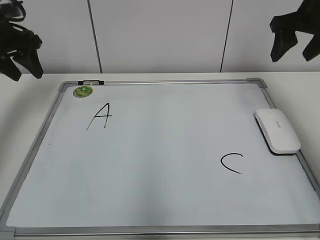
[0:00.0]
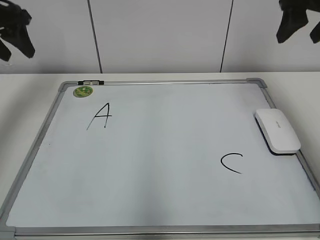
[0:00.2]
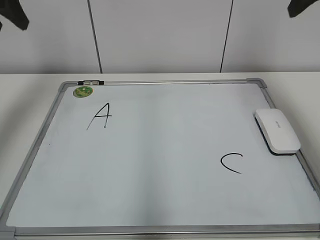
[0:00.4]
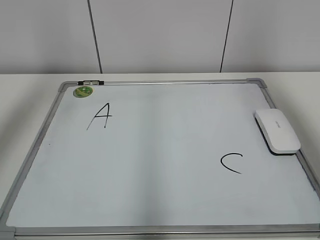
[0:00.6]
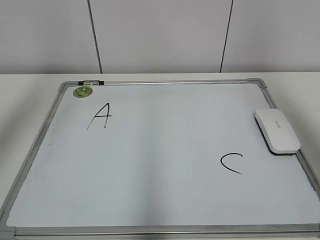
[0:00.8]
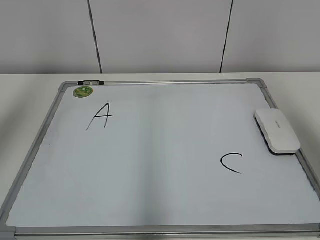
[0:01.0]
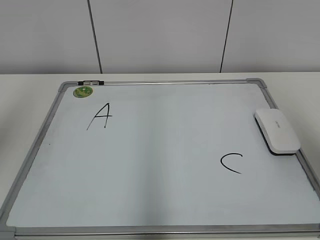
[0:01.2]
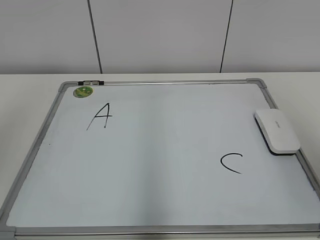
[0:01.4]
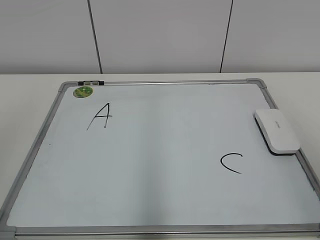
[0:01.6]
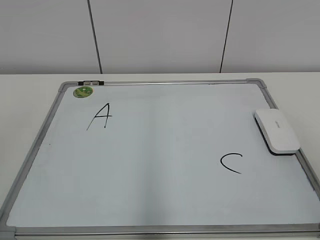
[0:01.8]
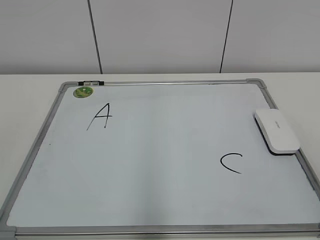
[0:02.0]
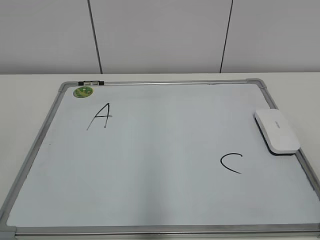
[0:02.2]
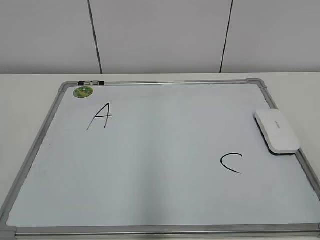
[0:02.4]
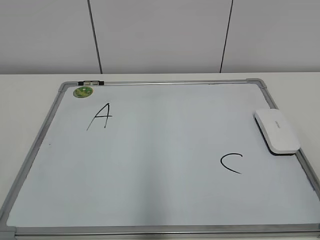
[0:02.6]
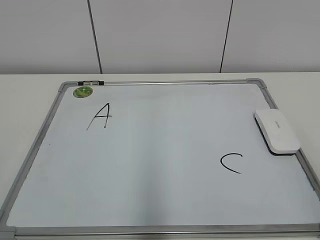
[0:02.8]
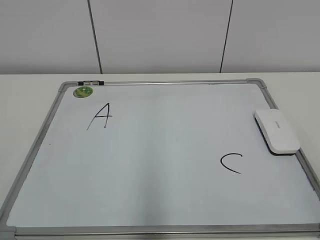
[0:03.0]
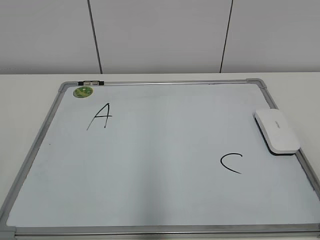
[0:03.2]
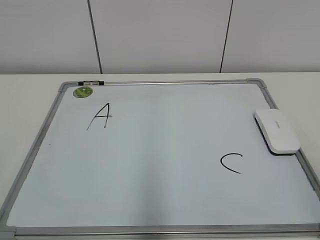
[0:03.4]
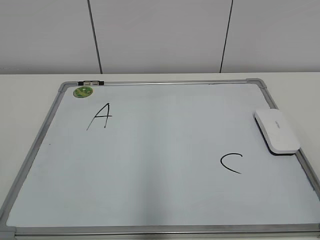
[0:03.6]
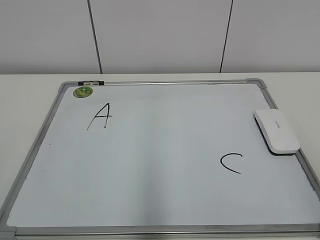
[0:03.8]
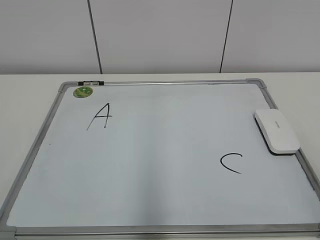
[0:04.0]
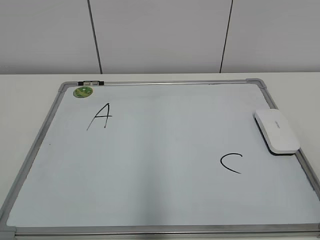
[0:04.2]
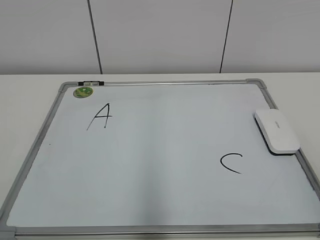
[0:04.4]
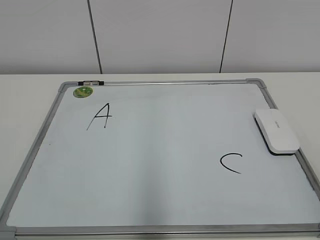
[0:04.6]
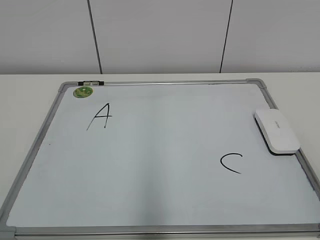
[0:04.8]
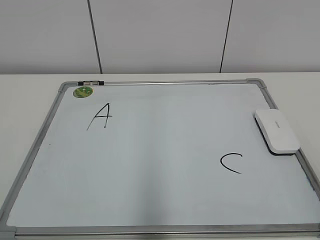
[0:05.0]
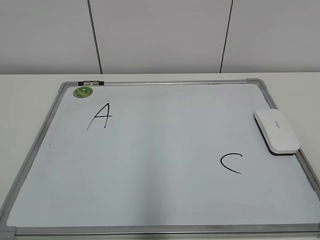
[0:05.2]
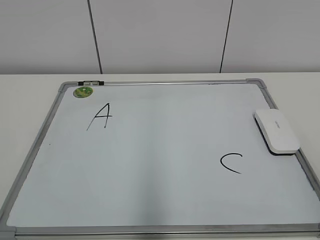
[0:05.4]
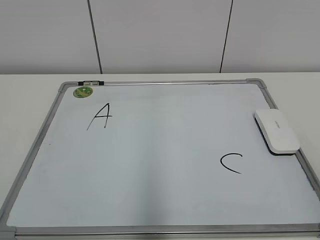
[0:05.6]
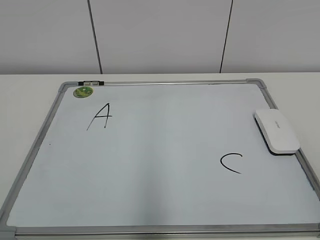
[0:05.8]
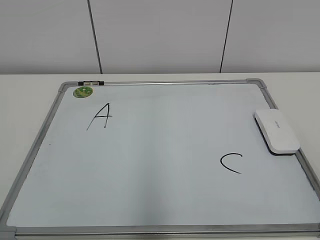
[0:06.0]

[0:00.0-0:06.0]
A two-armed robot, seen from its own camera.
Task of the whole recording: pick up the eraser on the blackboard and erase the letter "B".
0:00.0 to 0:01.6: The right gripper heads backward, covering approximately 35 cm. The left gripper shifts about 35 cm backward and upward.
0:04.4 to 0:06.0: Neither gripper changes place.
